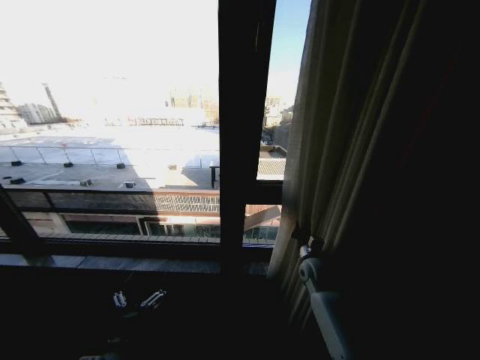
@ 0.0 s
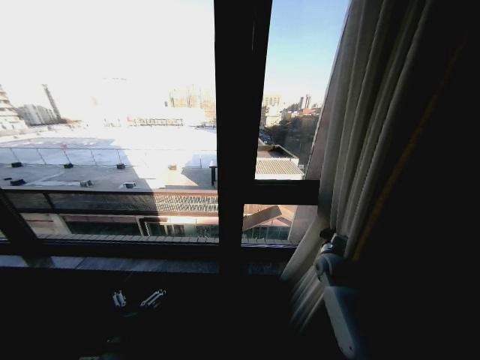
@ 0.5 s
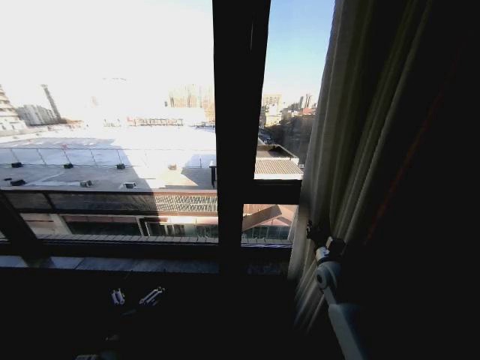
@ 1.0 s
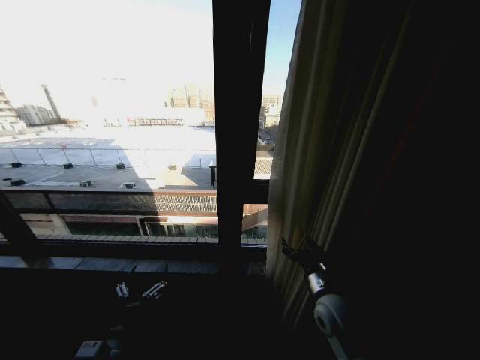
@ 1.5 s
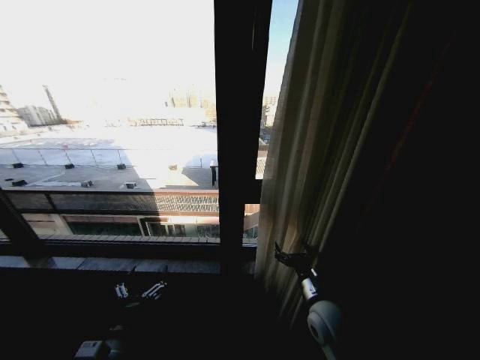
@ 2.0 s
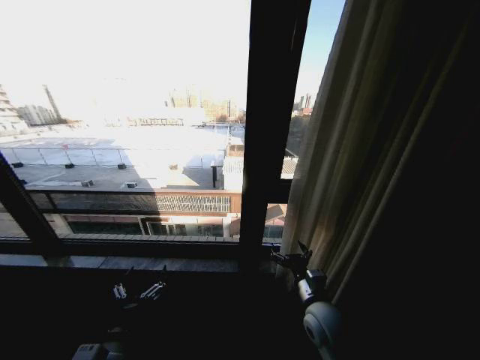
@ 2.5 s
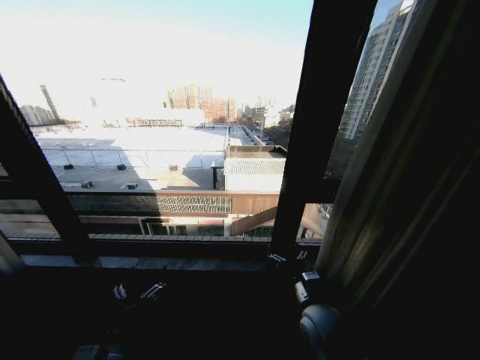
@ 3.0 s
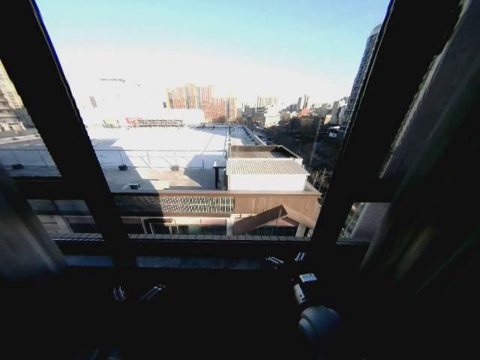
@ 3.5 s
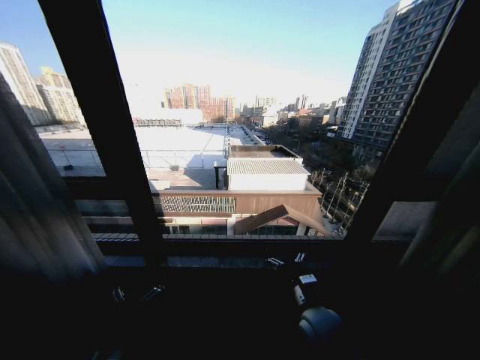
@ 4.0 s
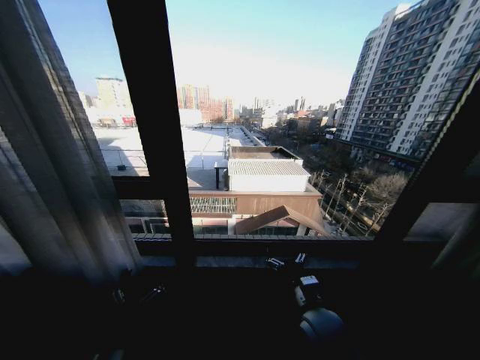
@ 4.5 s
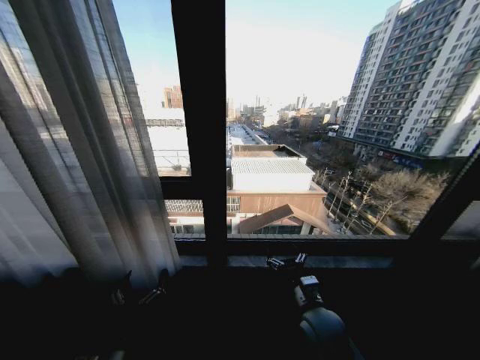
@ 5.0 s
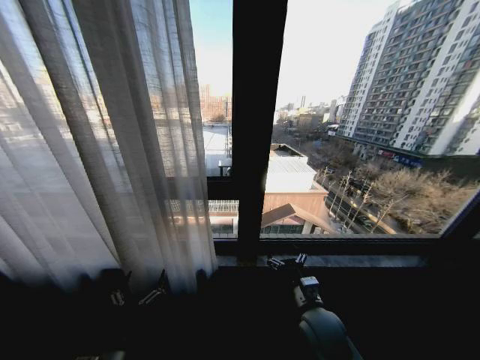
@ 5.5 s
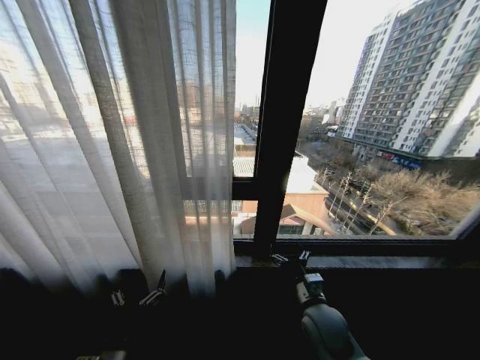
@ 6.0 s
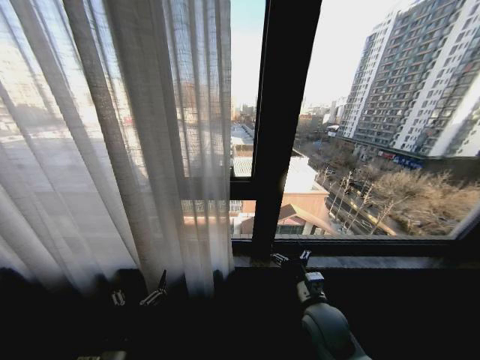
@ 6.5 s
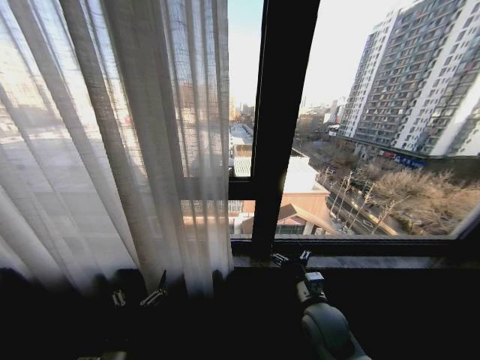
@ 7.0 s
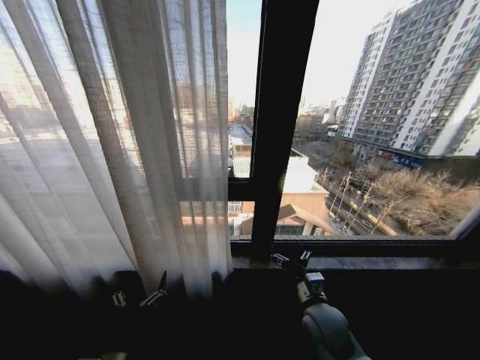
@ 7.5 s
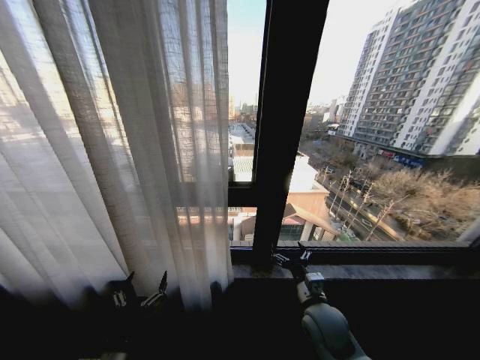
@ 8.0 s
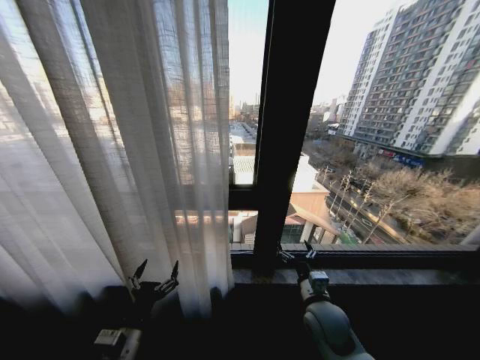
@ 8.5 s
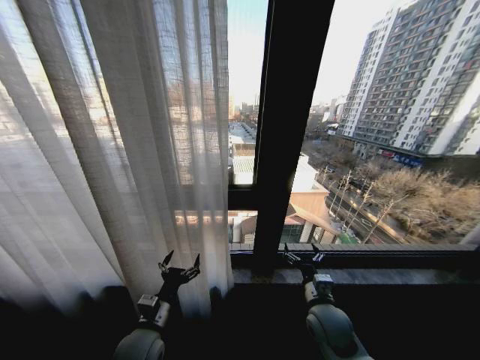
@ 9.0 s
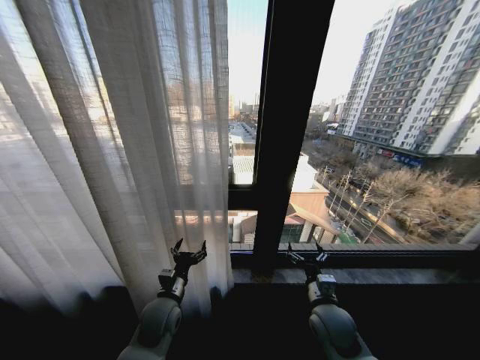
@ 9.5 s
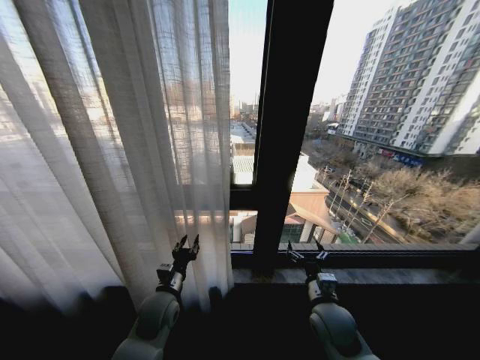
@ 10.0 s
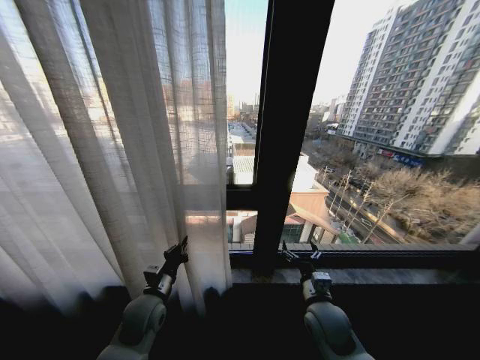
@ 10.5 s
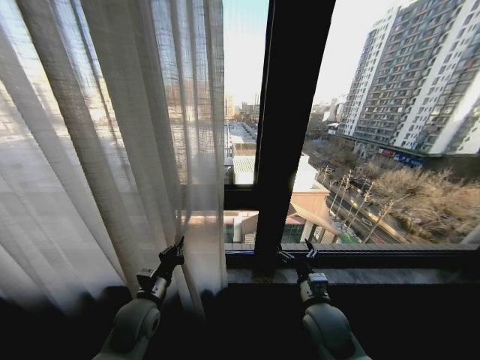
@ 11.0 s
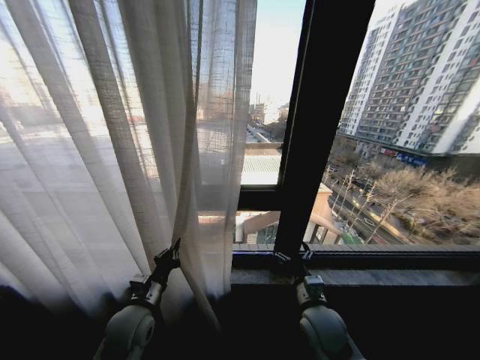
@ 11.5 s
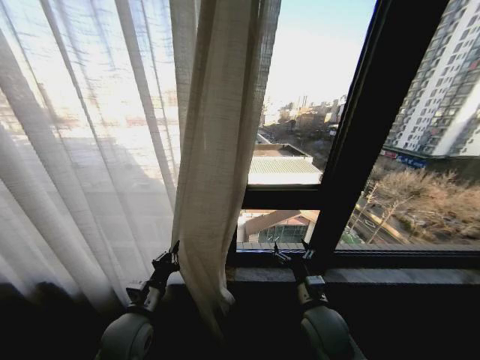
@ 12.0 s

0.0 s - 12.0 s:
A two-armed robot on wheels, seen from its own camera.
Task of the whole recording: Open the curtains by pulling them apart, changing their state from closed to fully open.
0.0 s - 2.0 s: The right gripper goes roughly 15 cm backward, and opens up.
8.0 s - 10.0 s: The left gripper travels forward by some 20 cm, and closes its fingers.
10.0 s - 12.0 s: The left gripper is displaced backward by some 5 cm, and closes its fingers.

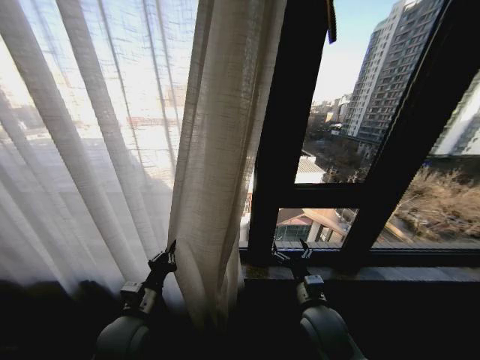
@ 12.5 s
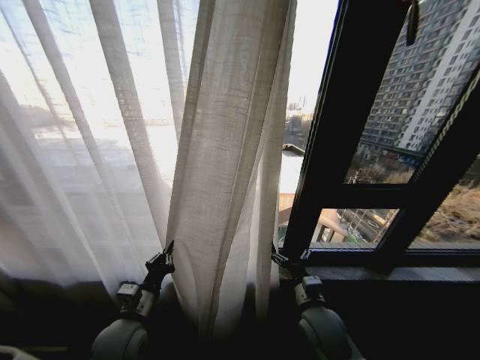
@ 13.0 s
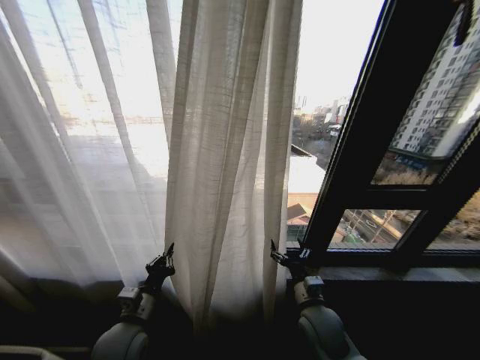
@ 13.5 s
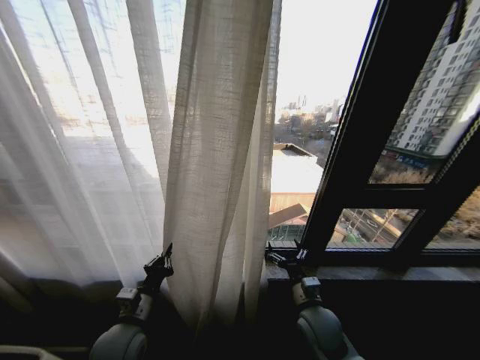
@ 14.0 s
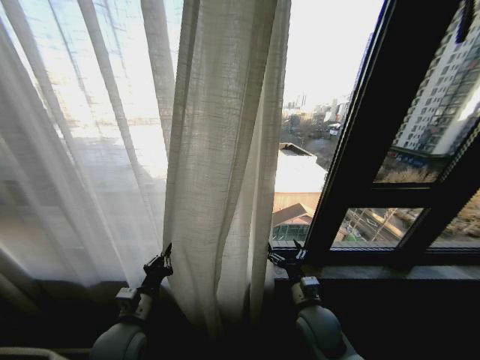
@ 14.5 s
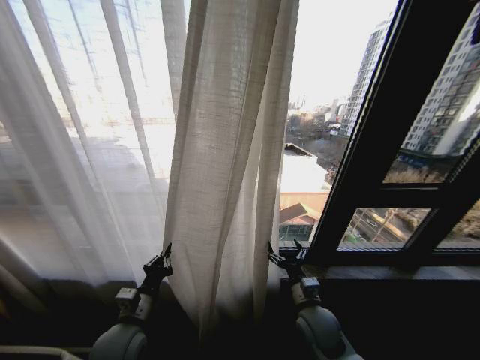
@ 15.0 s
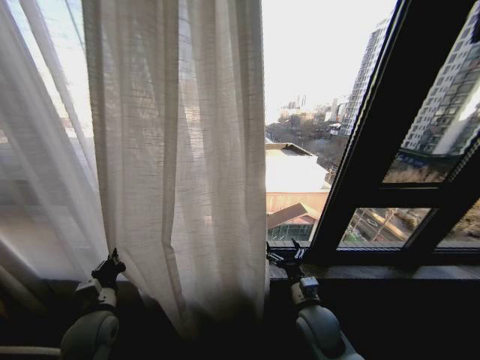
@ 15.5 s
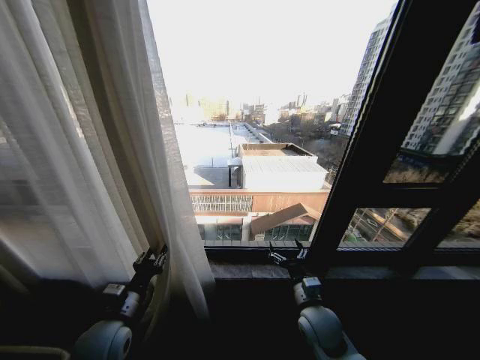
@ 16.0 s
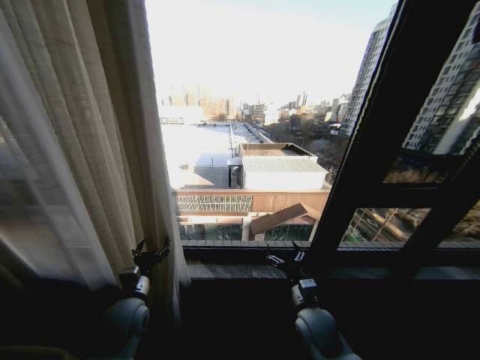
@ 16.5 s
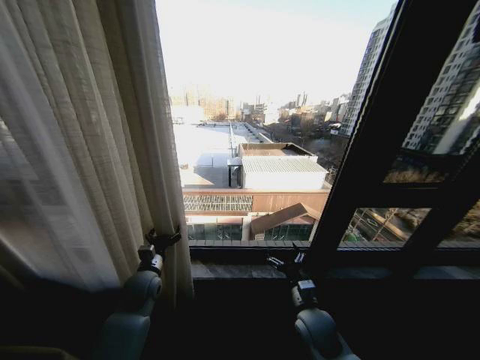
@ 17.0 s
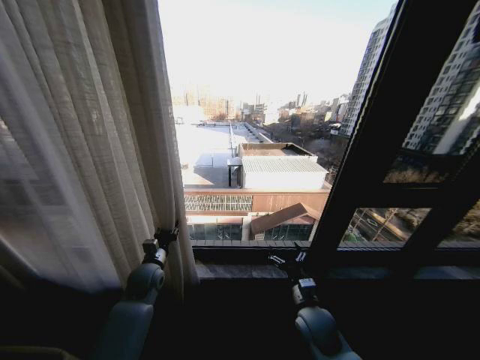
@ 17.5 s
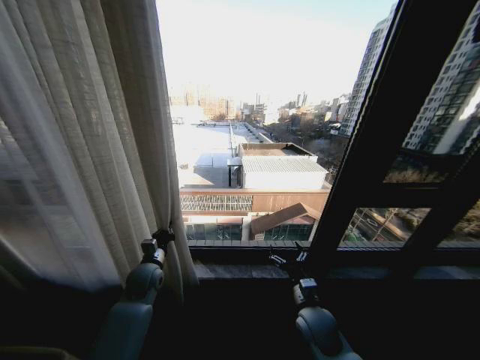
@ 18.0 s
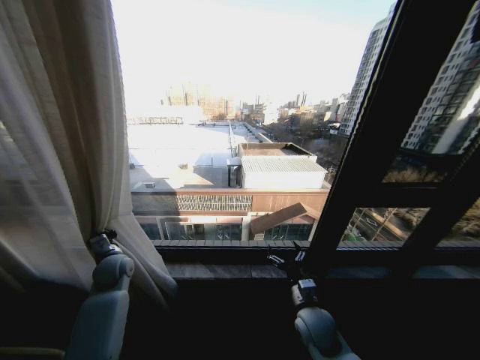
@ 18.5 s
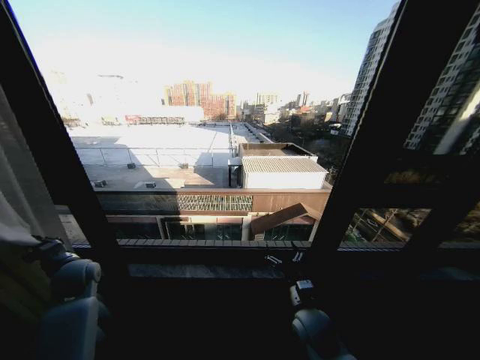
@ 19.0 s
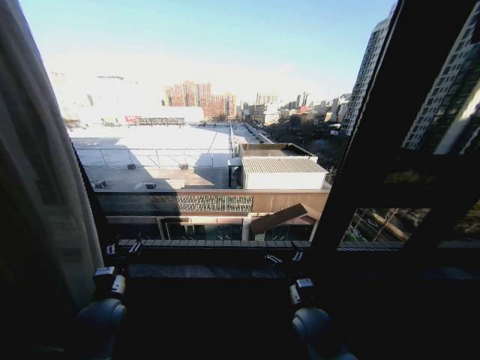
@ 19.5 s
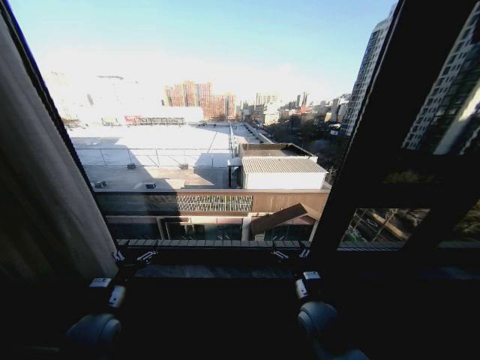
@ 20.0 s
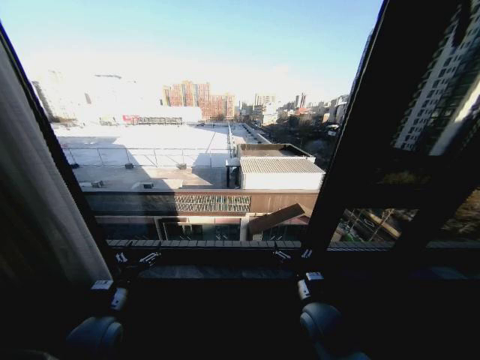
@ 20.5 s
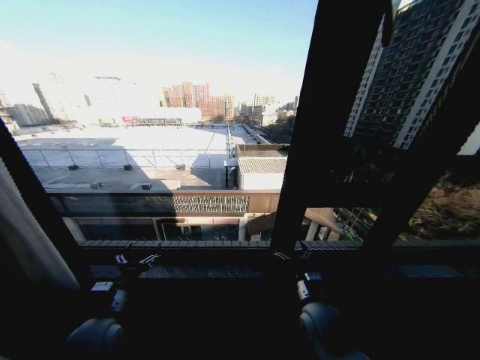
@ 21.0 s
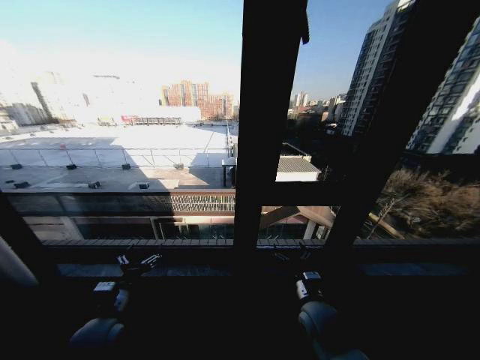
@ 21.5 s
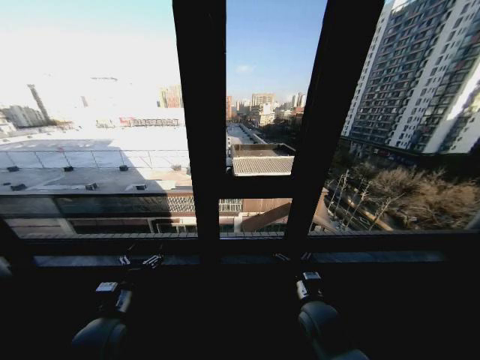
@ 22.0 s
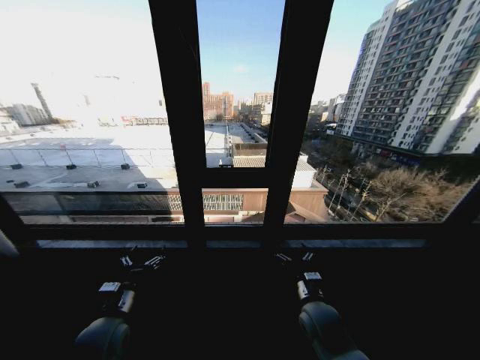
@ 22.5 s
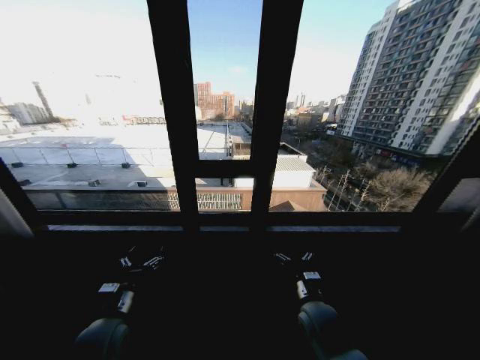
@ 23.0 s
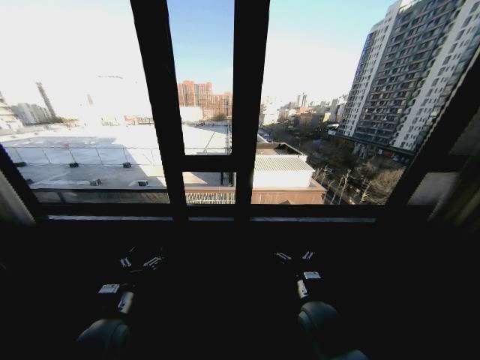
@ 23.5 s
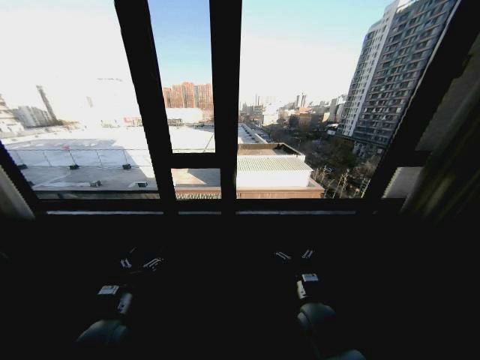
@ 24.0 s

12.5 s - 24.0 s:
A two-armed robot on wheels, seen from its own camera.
Task of the whole recording: Open the curtains by pulling them apart, changing their state from closed to fully open.
14.5 s - 16.5 s: The left gripper heads forward, covering about 5 cm, travels to the left and back again, about 10 cm each way, and opens up.
16.5 s - 18.5 s: The left gripper goes approximately 15 cm forward and to the left, and closes its fingers.
18.5 s - 20.0 s: The left gripper is displaced backward by roughly 15 cm, and opens its fingers.

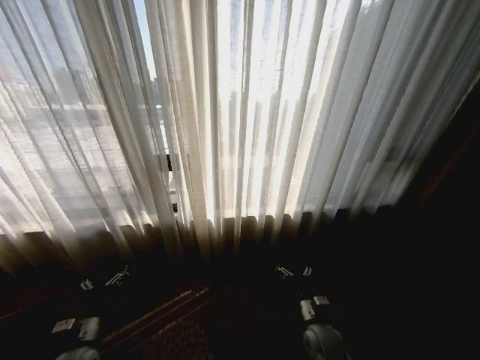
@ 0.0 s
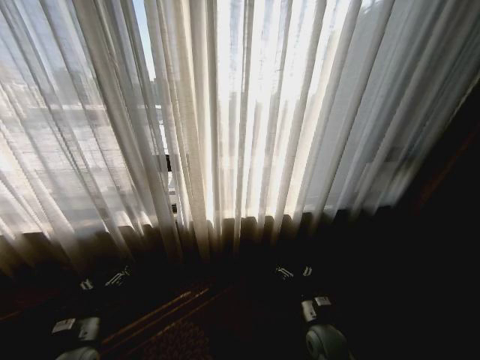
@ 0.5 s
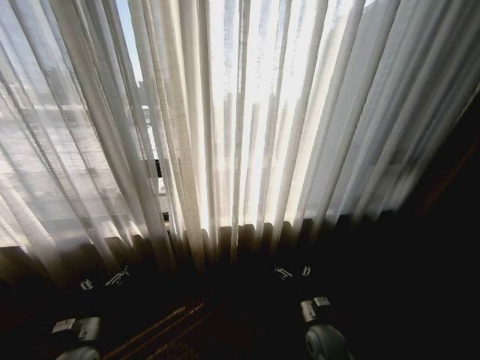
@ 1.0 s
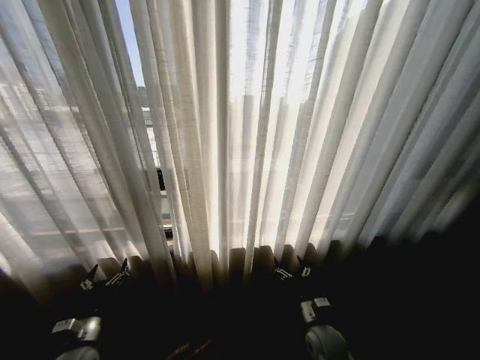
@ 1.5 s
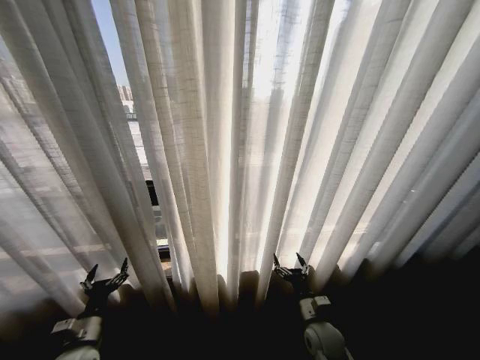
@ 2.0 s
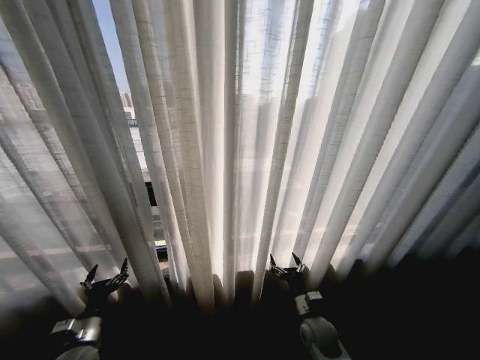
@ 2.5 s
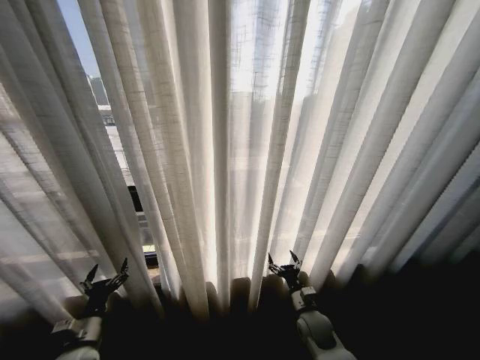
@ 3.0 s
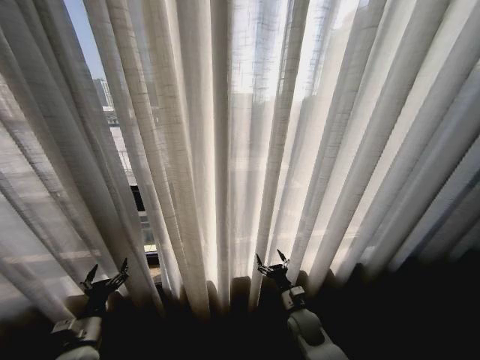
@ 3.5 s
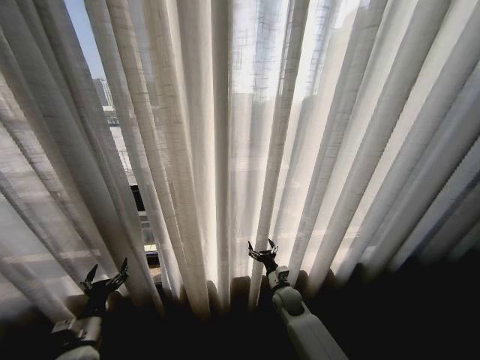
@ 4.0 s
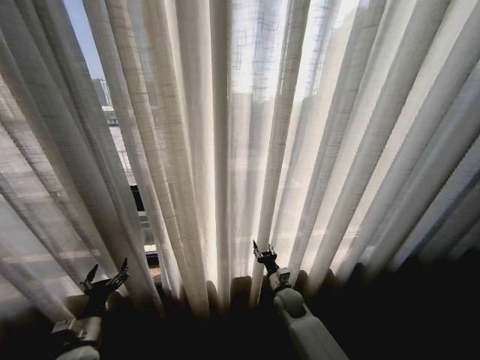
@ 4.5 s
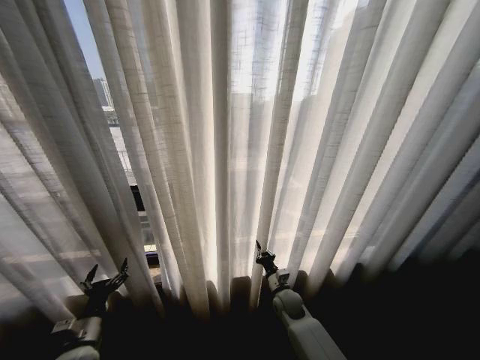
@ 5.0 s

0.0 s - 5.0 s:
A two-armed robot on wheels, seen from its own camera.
Task of the whole recording: Open the curtains by pulling them apart, changing their state from closed to fully open.
2.5 s - 5.0 s: The right gripper travels forward and to the left by about 10 cm, and closes its fingers.
